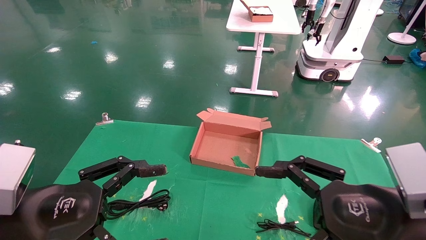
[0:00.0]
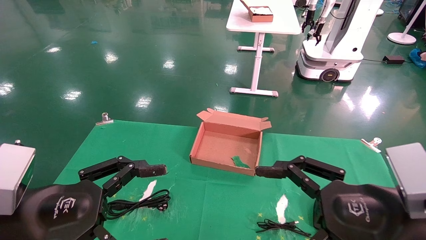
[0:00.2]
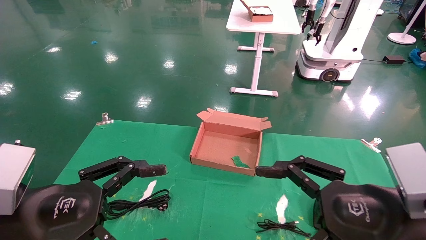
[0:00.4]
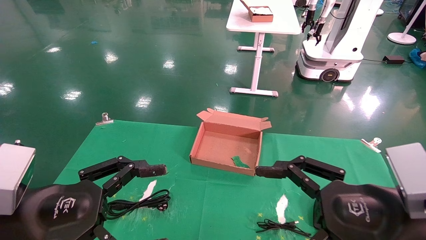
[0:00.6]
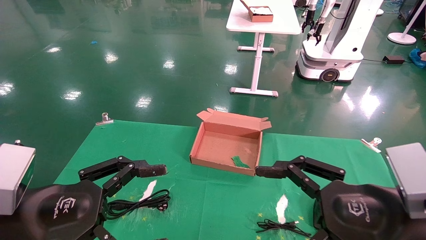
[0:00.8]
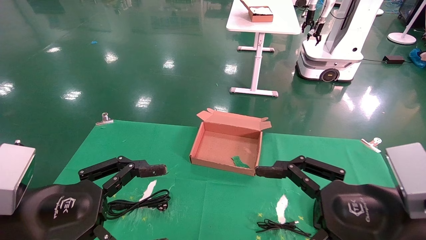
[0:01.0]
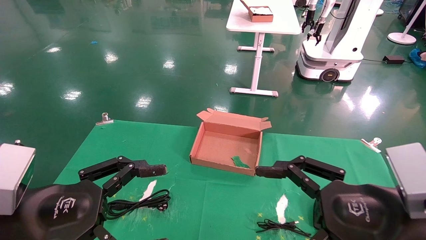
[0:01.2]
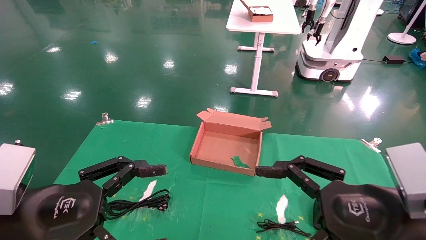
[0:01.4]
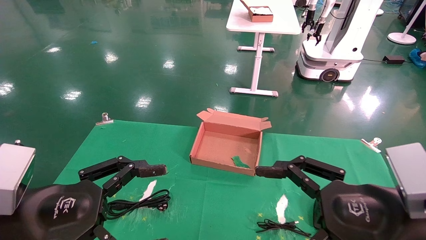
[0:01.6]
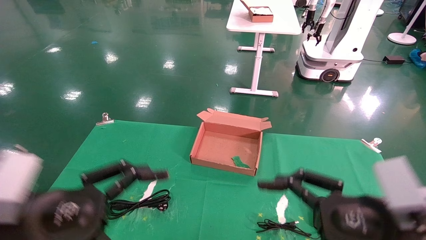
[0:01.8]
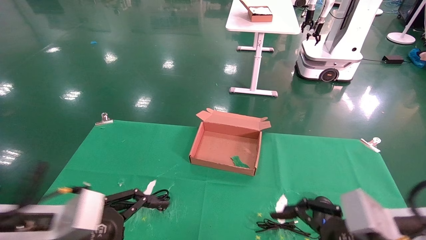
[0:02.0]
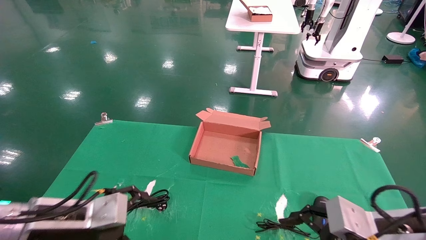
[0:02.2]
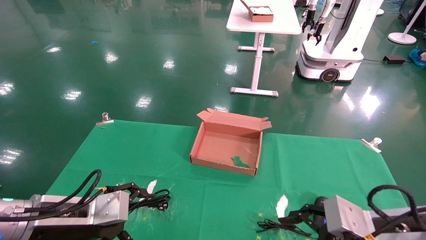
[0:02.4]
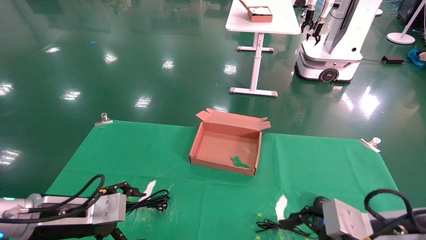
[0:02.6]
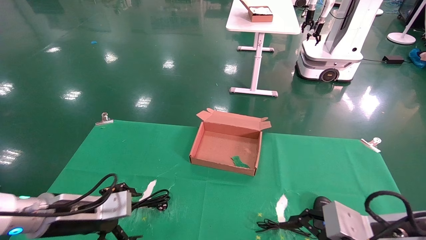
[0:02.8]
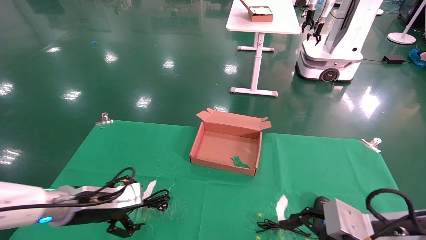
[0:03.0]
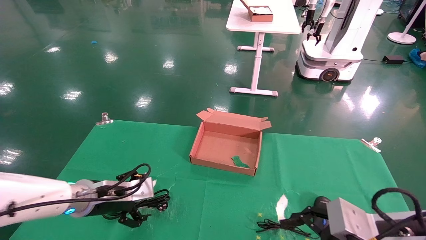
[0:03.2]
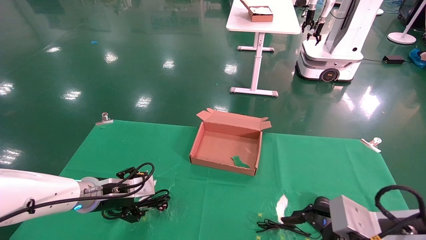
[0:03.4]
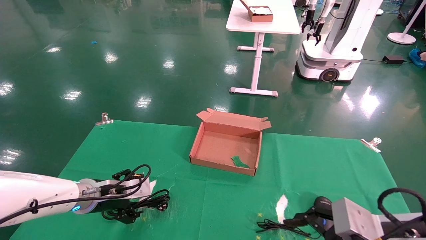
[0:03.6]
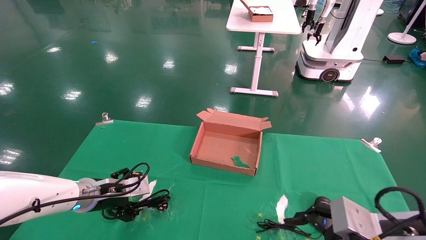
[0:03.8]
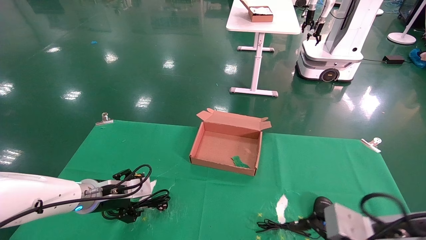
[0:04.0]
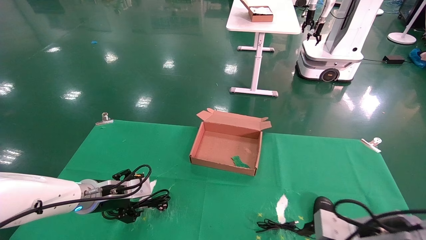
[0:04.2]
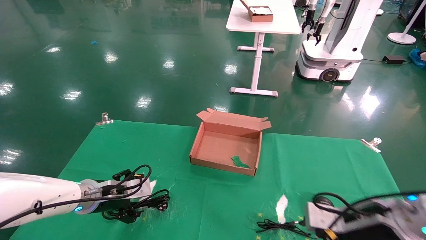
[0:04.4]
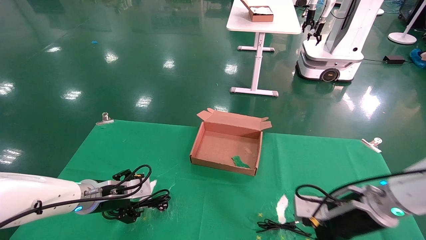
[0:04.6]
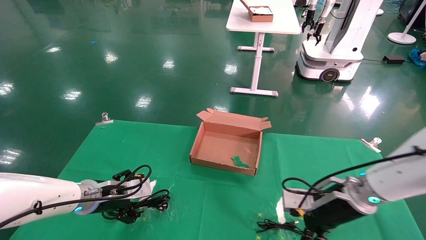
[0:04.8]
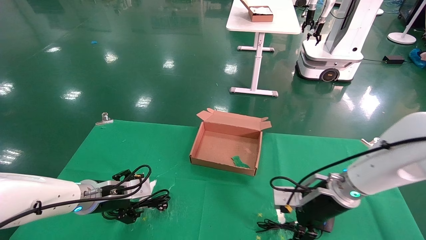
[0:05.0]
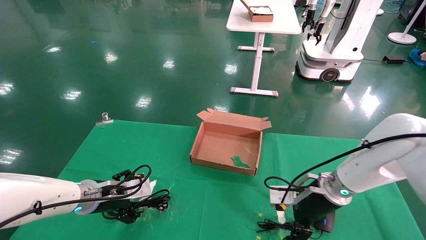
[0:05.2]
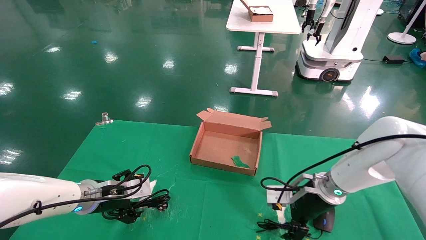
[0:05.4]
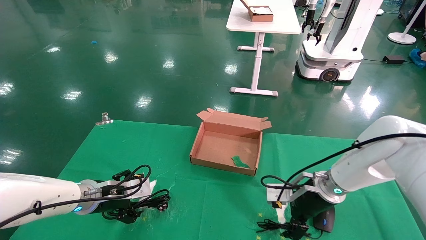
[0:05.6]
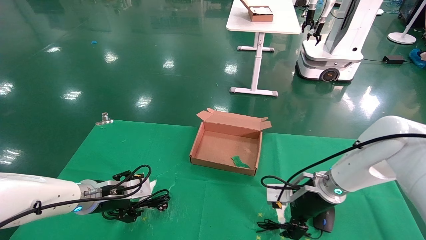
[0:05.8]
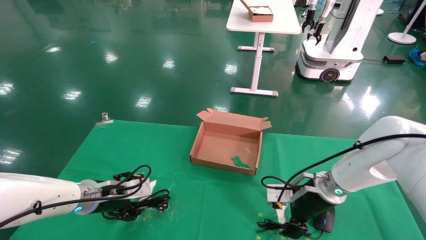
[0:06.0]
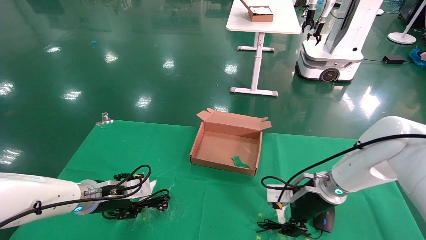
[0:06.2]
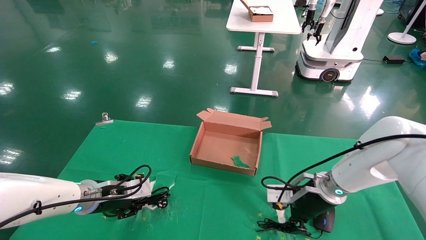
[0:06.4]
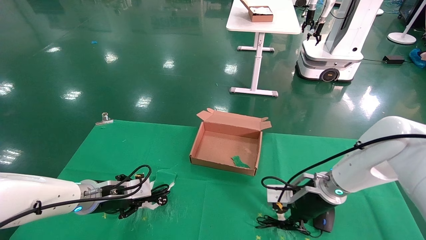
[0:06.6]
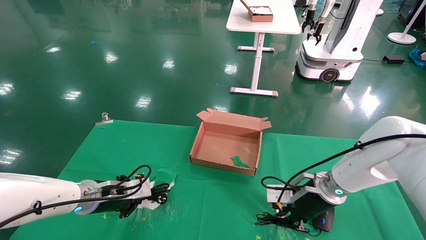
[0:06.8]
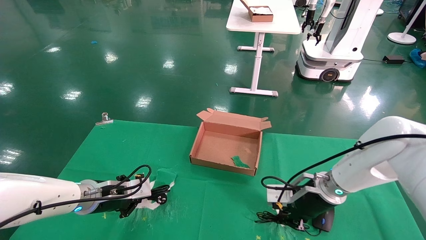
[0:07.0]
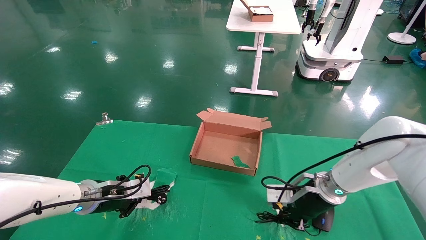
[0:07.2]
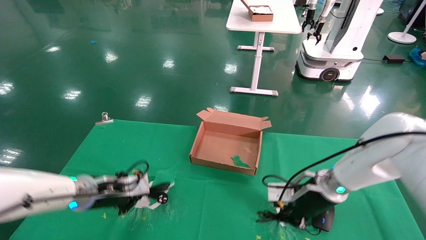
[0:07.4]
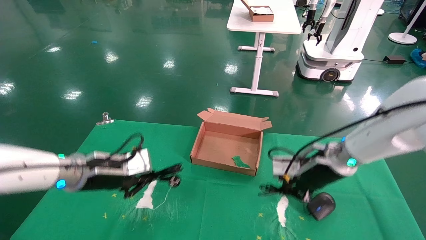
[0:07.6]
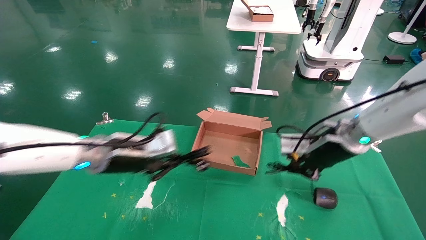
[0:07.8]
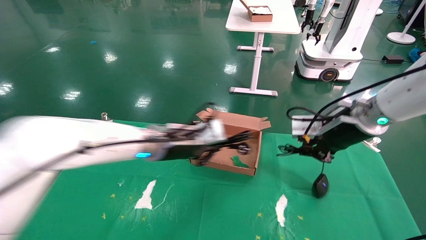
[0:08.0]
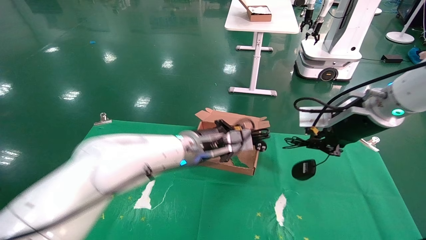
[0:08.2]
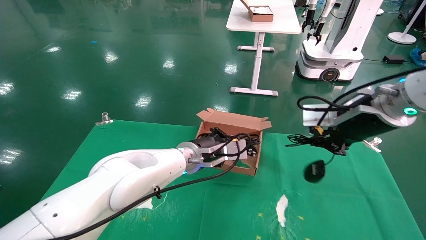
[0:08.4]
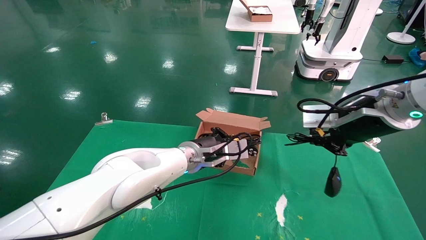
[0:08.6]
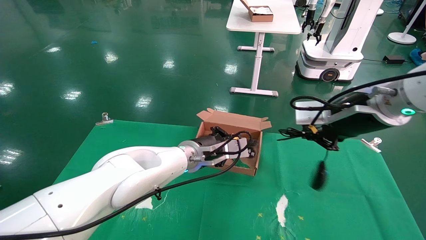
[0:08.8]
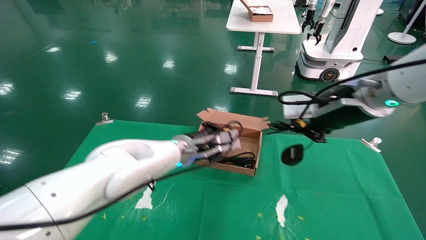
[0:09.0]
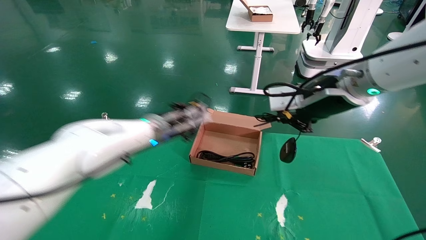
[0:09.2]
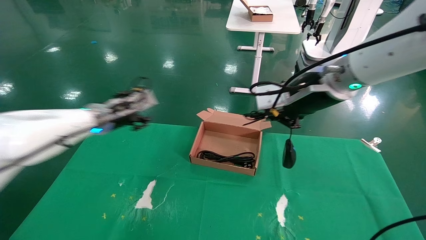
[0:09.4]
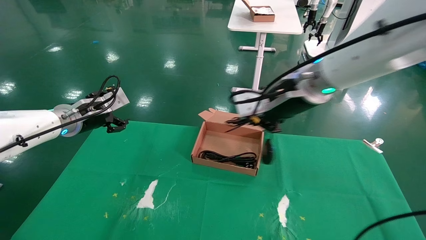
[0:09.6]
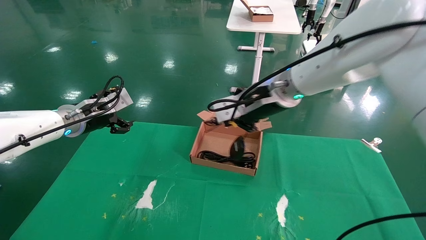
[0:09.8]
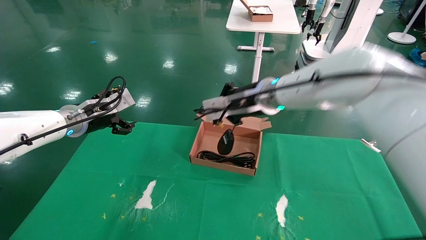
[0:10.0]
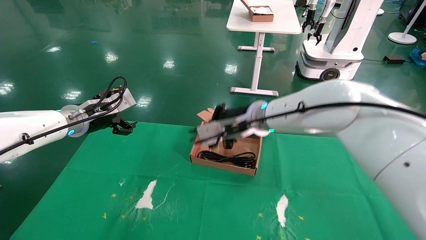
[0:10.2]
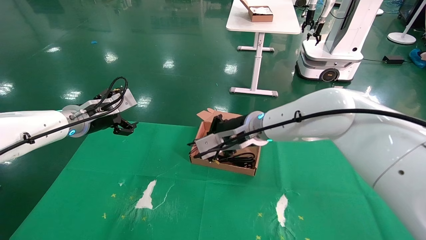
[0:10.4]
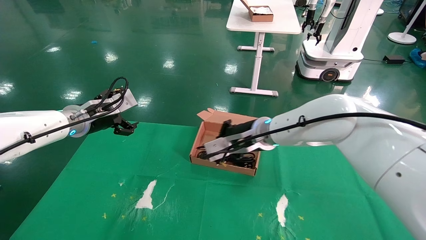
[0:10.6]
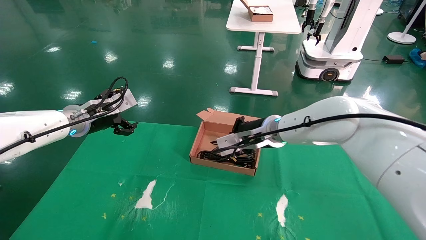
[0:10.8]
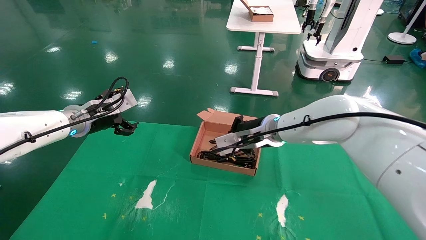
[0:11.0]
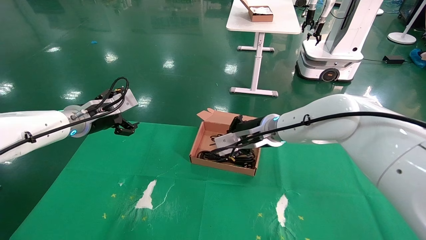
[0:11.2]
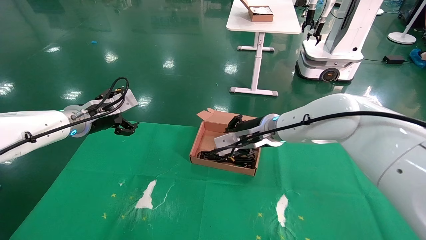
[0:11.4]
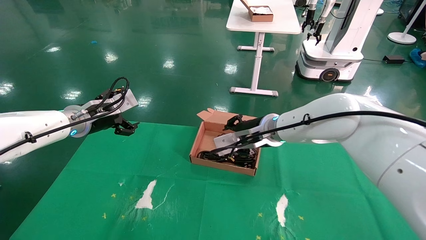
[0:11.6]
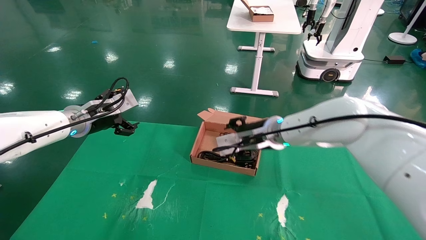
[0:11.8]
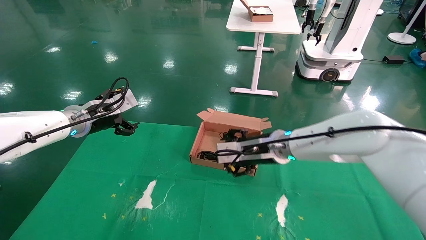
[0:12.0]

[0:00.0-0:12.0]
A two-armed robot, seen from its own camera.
Step, 0:02.4 to 0:08.0: Grab and lift both the mouse and power cord from the accessory packaging area at the same time.
0:00.0 to 0:01.6: The two grippers keep their place.
0:01.6 to 0:03.0: The right gripper goes about 5 cm downward, while the left gripper moves forward and downward, about 15 cm.
0:03.0 to 0:04.4: Both grippers travel together forward, roughly 5 cm.
0:04.4 to 0:06.0: The right gripper goes roughly 15 cm forward and to the left.
0:06.0 to 0:07.6: Both grippers travel together upward, some 10 cm. The left gripper closes its fingers, while the right gripper closes.
0:07.6 to 0:09.0: The left gripper moves to the right and forward, about 15 cm; the right gripper is displaced upward and backward by some 15 cm.
0:09.0 to 0:10.4: The left gripper heads to the left, covering roughly 20 cm, and opens its fingers; the right gripper goes some 20 cm to the left, forward and downward.
0:10.4 to 0:12.0: The right gripper moves approximately 5 cm, and opens its fingers.

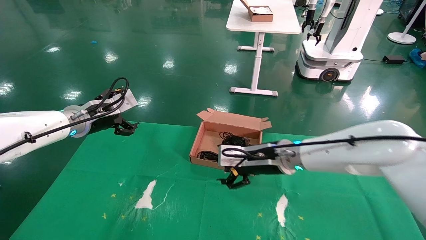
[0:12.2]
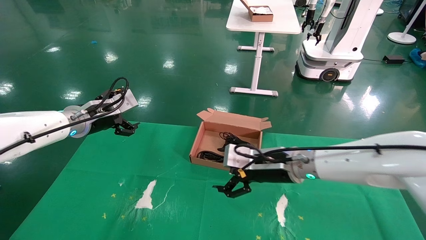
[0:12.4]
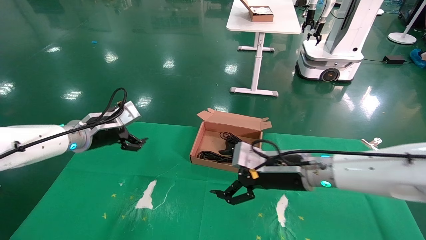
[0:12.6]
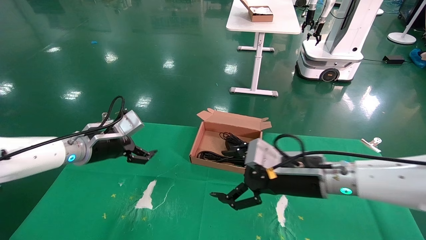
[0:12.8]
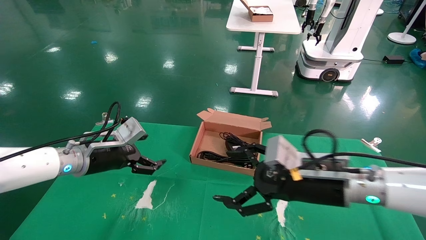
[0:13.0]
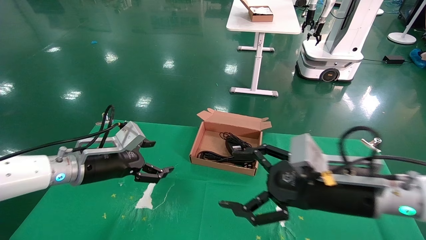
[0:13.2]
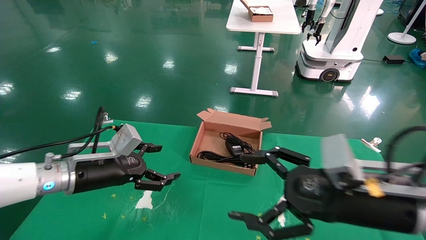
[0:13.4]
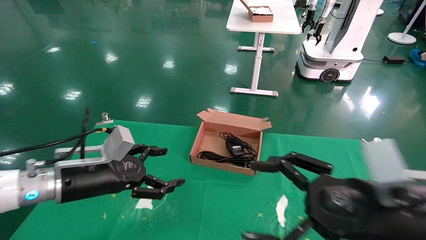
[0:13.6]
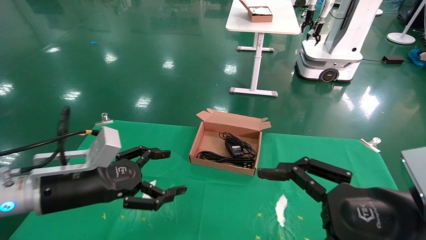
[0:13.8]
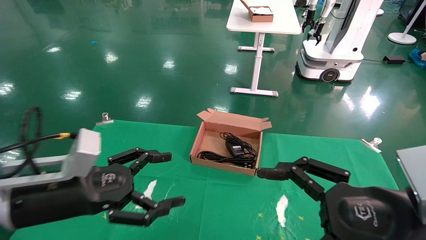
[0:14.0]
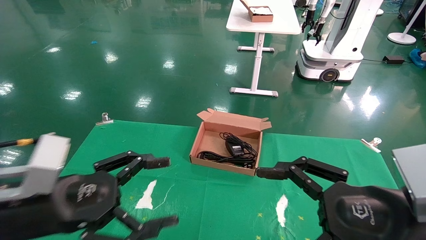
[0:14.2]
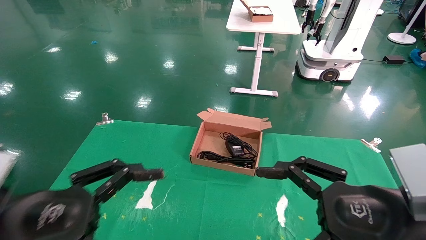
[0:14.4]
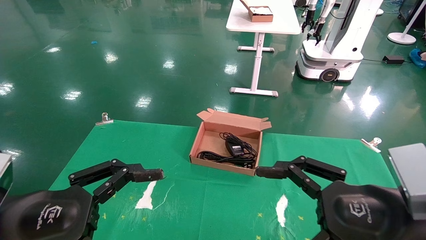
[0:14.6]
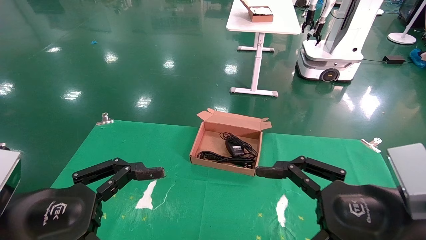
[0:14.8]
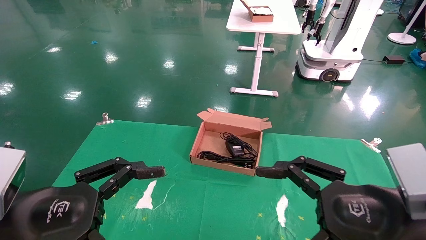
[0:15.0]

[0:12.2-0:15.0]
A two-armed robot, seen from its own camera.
0:12.2 to 0:13.6: The left gripper moves backward and downward, approximately 15 cm. Meanwhile the right gripper shifts about 25 cm backward and to the right.
0:13.6 to 0:15.0: The left gripper shifts about 15 cm backward.
